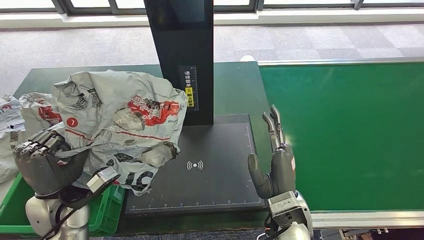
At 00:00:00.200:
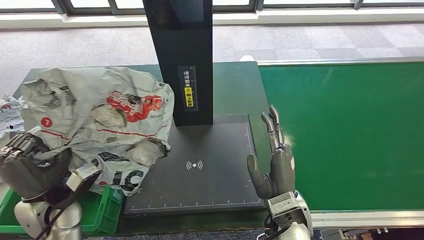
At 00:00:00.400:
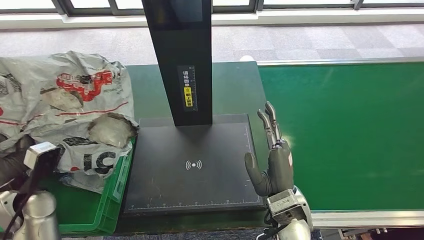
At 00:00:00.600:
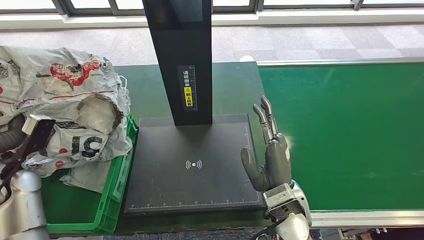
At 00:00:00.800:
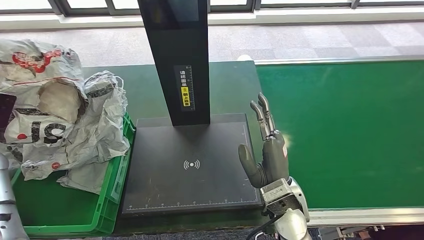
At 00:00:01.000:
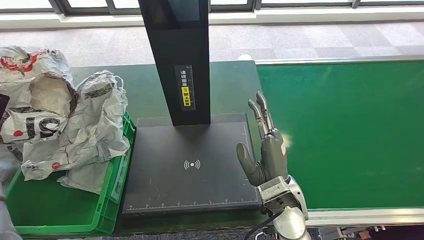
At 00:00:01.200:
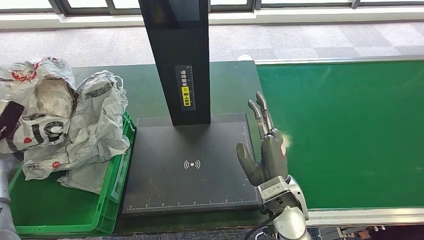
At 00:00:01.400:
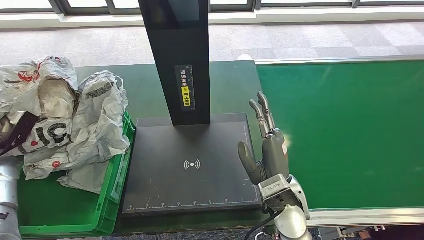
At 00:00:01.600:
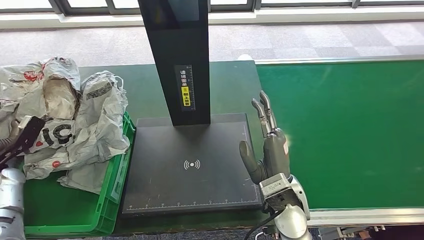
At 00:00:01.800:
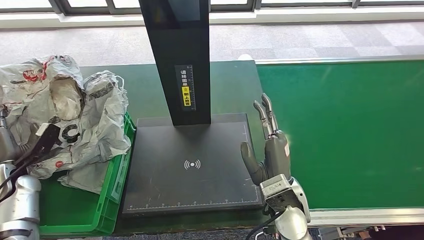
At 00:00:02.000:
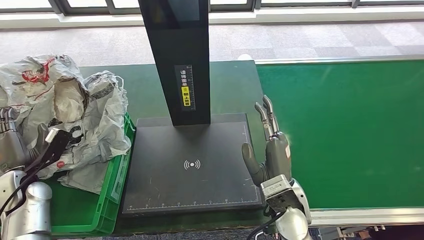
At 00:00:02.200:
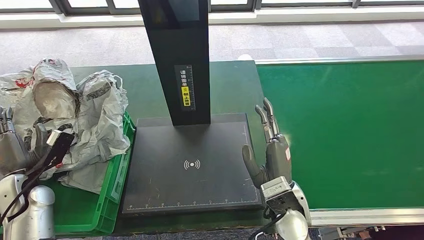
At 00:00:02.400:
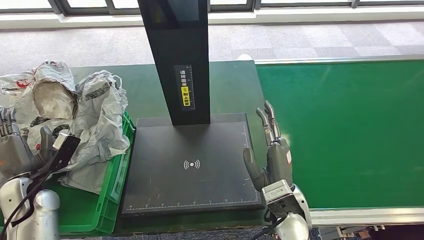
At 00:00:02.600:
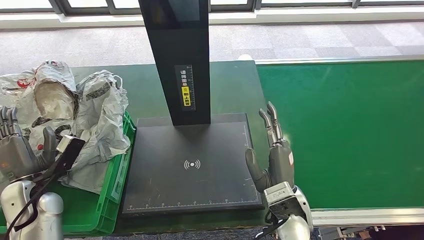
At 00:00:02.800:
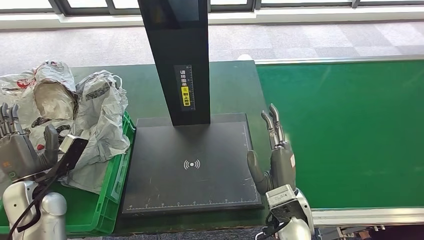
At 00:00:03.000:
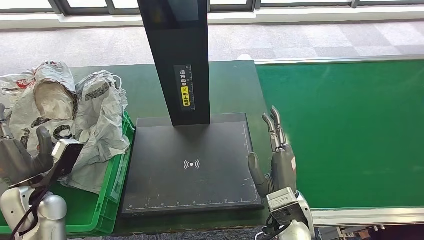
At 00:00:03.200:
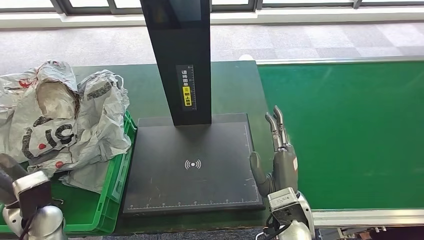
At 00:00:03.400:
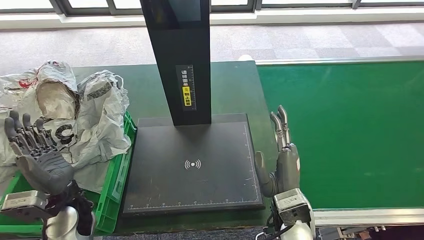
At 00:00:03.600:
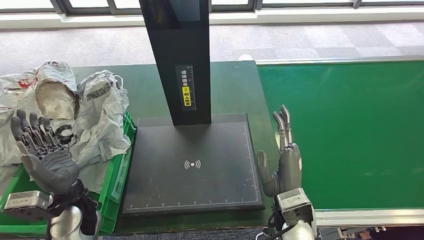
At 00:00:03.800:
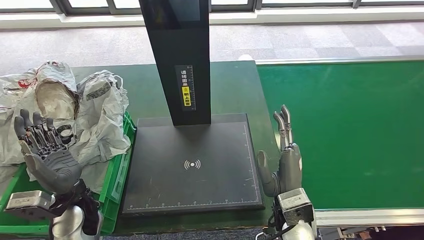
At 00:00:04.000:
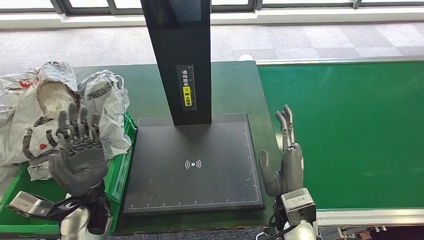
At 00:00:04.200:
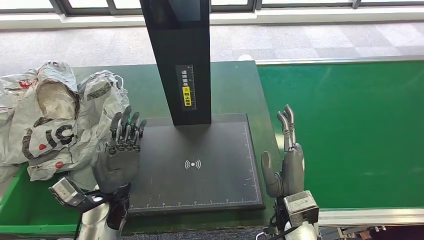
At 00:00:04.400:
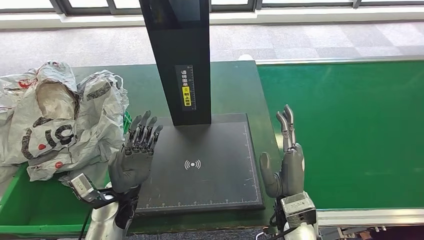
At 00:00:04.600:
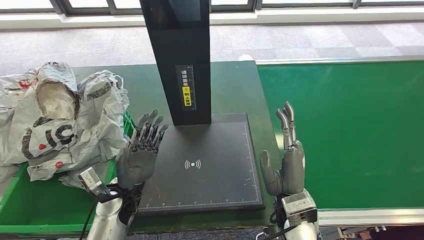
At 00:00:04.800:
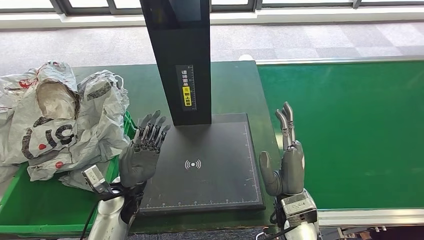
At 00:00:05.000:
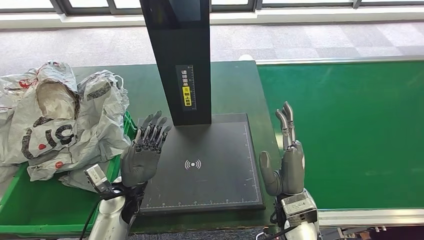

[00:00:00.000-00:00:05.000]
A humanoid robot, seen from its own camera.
Step, 00:00:00.000 to 00:00:03.800: Pick up the parcel from the inbound machine.
Step, 00:00:04.000 to 00:00:05.000: Place the parcel into the delivery box.
00:00:01.600 to 00:00:03.400: The left hand is displaced to the right by about 25 cm.
00:00:03.400 to 00:00:05.000: The left hand is displaced to the right by some 10 cm.
